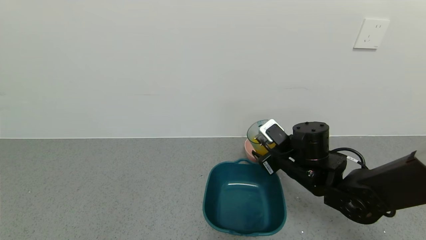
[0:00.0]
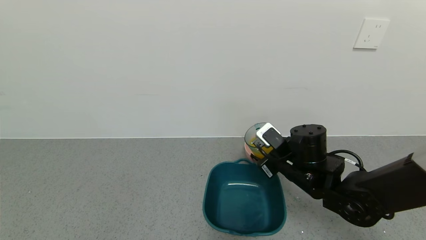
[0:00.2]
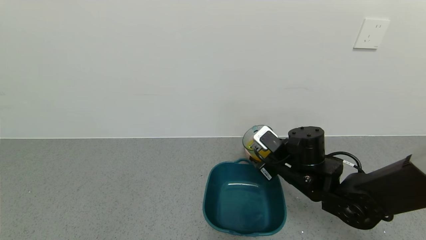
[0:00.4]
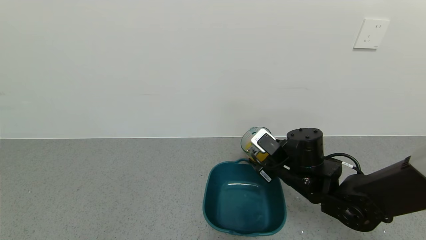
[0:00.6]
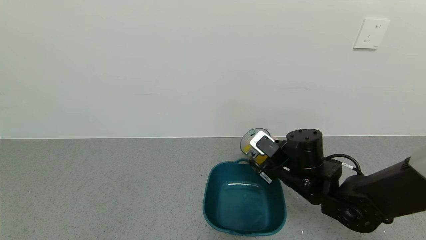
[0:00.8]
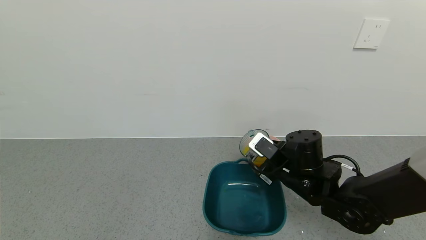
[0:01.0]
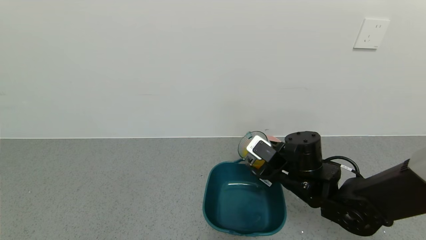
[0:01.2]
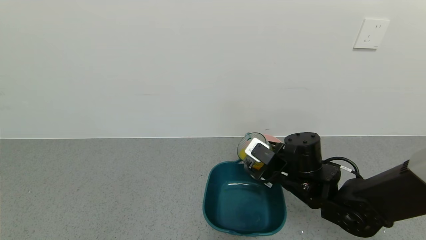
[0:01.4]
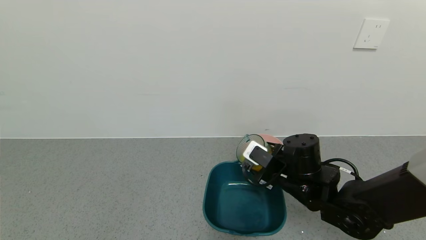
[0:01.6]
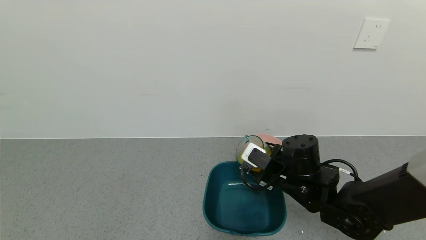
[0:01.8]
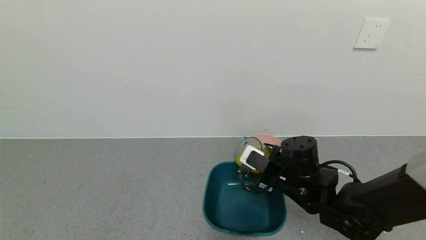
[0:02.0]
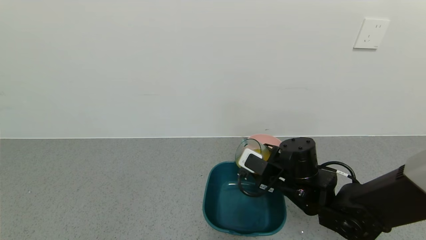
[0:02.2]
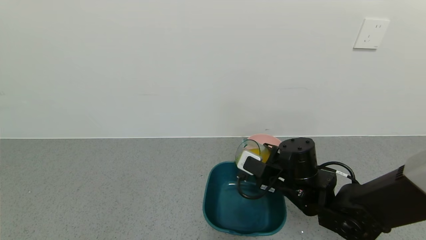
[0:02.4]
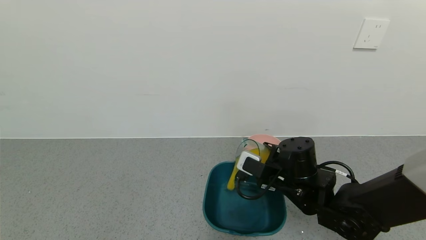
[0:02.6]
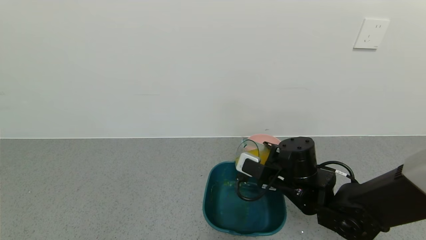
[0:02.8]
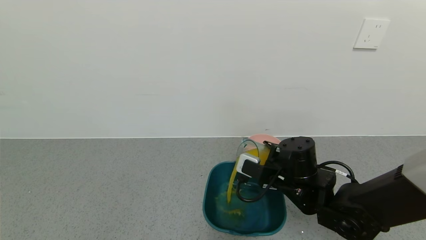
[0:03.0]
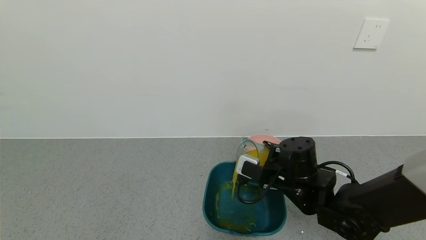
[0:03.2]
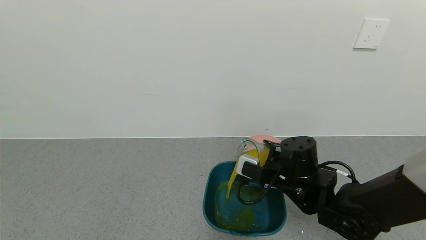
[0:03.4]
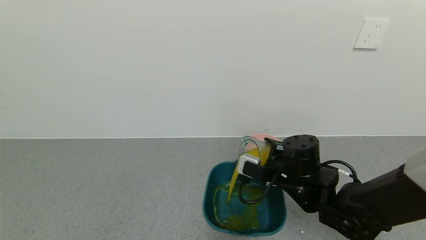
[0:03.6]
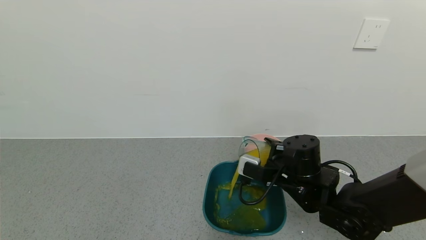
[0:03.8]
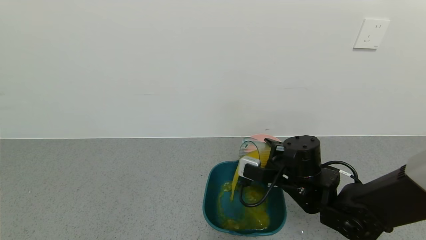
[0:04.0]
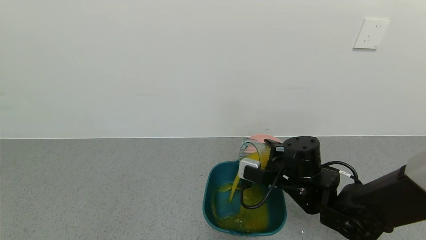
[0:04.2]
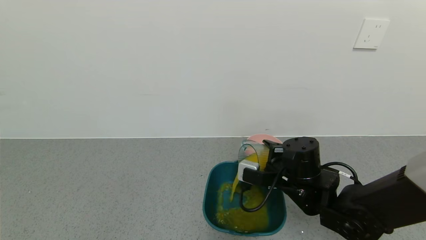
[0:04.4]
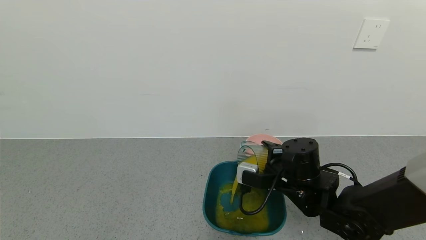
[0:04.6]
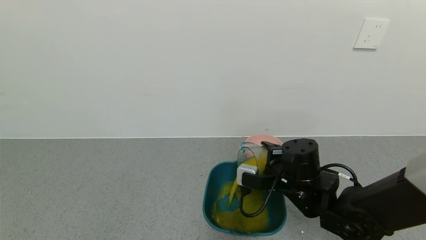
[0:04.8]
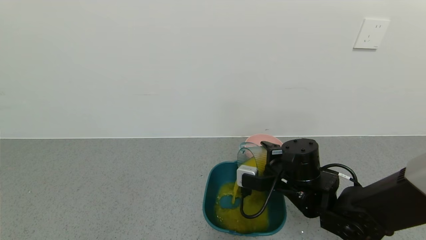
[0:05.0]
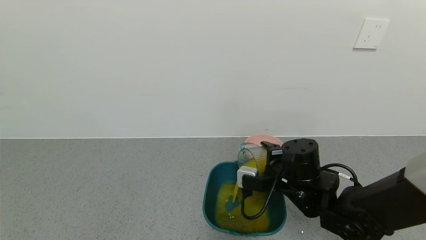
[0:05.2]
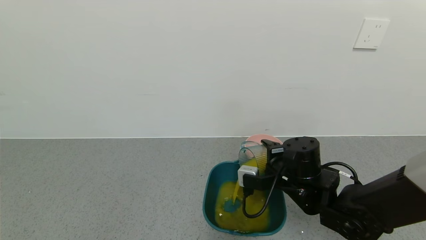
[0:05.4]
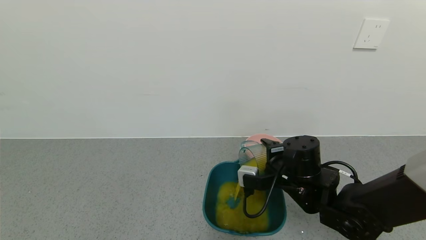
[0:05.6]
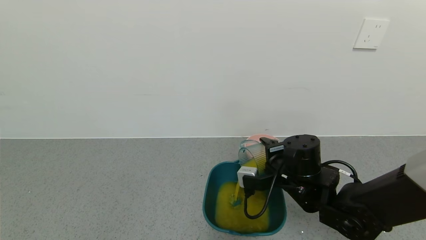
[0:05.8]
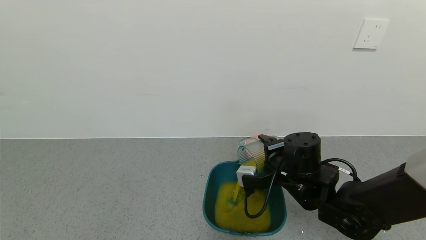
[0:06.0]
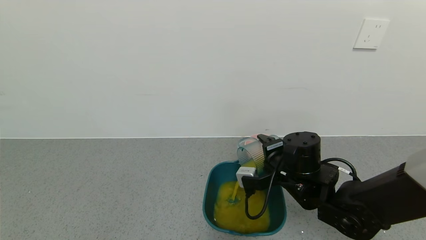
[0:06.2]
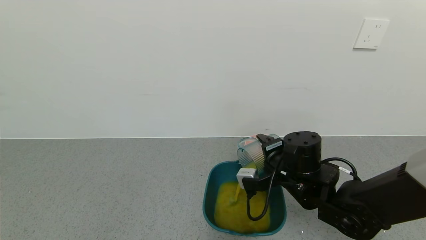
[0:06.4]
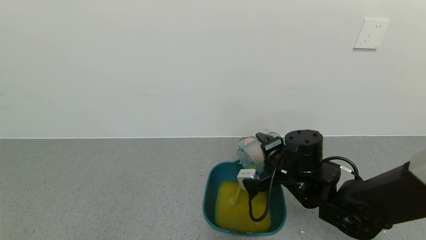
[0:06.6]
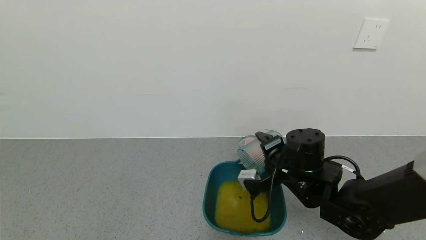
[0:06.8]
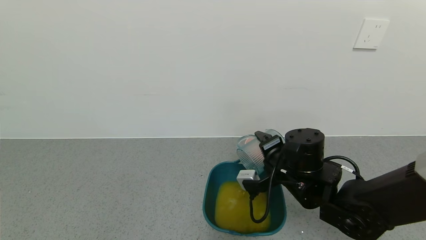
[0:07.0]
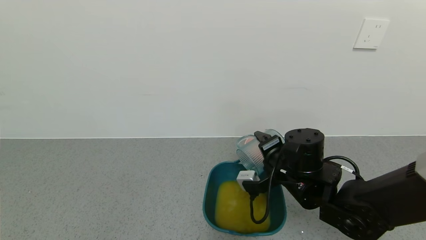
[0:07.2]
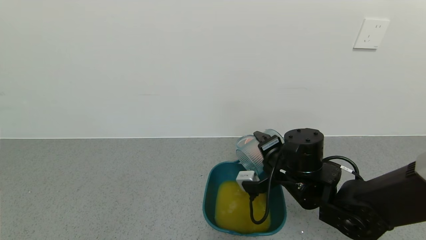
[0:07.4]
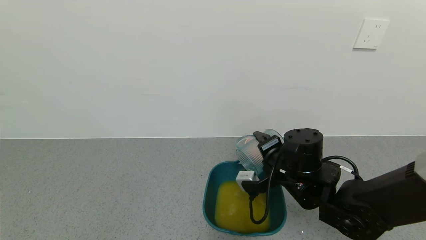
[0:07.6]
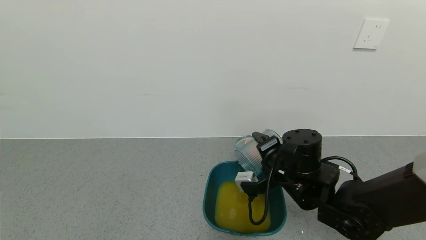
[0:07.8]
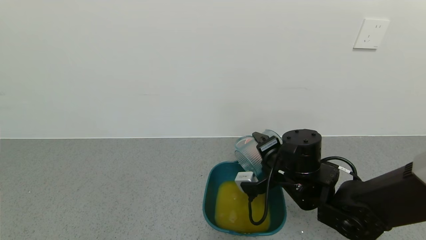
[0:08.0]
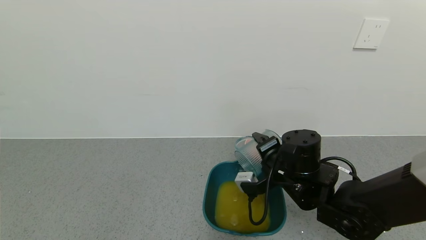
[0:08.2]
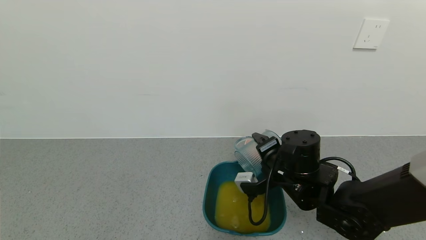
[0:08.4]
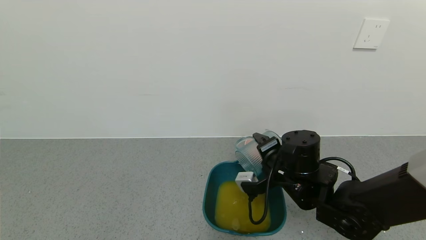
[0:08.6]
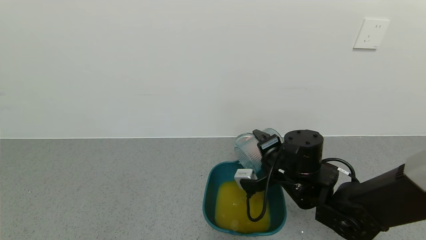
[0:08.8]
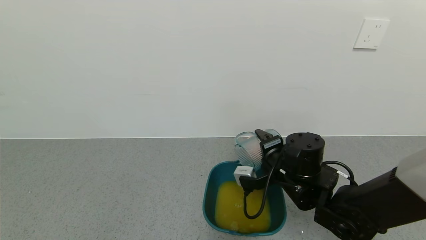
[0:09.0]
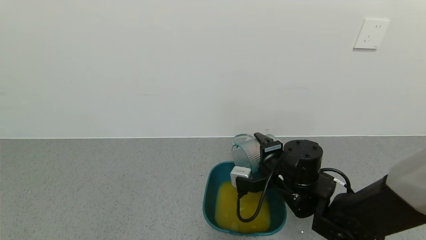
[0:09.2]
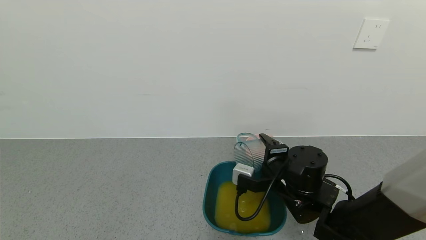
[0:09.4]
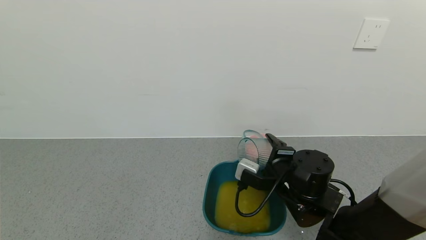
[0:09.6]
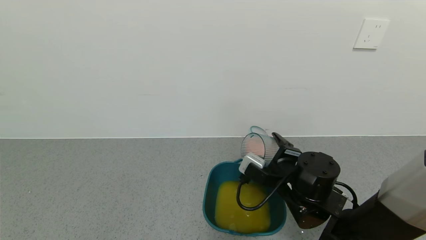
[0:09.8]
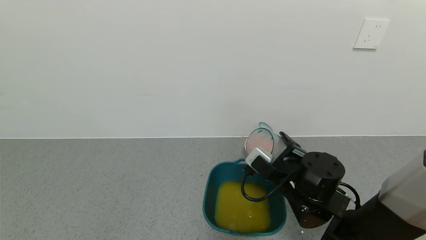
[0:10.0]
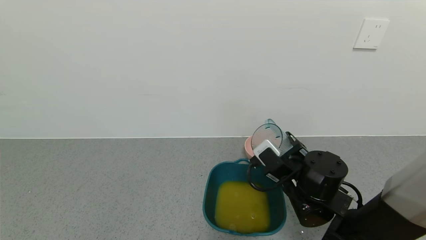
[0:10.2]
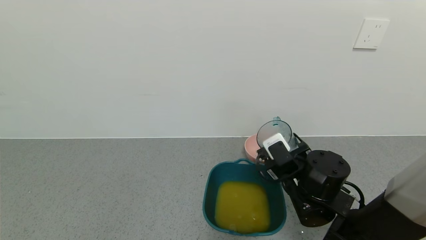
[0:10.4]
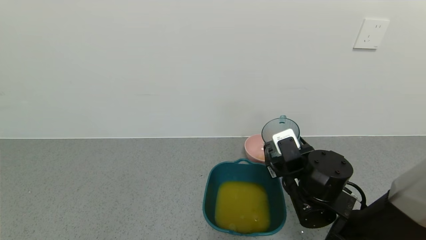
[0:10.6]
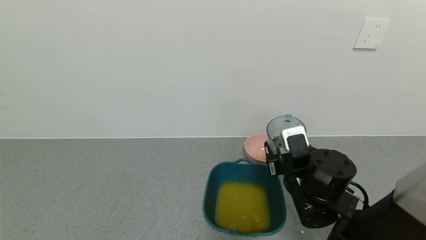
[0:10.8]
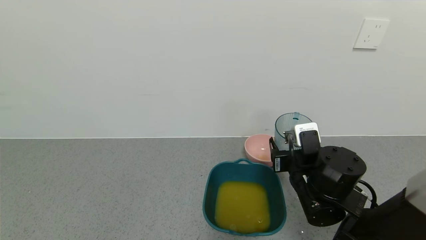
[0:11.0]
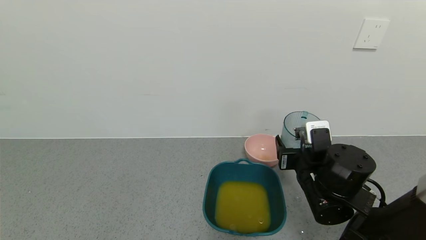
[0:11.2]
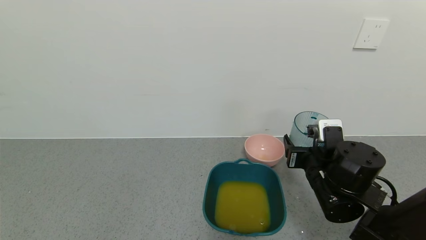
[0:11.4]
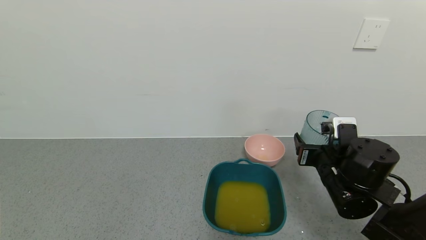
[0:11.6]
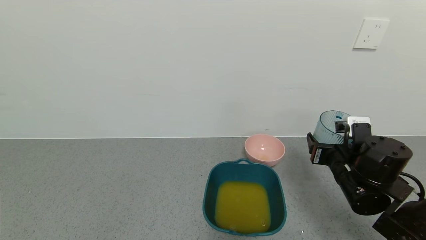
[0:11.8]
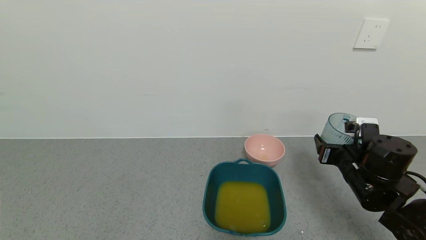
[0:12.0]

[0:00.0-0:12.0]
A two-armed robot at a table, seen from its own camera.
Task of the whole recording: use a gripper to pick up the cup and pour the liquid into a bowl or tray.
Step, 0:00.0 to 0:07.4: Pour the orange juice into the green bowl with the right gripper.
0:00.0 to 0:01.6: The grippers stay close to where they were, moving slightly.
0:01.6 to 0:03.0: The grippers make only small movements.
0:03.0 to 0:04.4: The grippers stay close to where they were, moving slightly.
0:04.4 to 0:06.0: The grippers stay close to where they were, moving slightly.
0:06.0 to 0:09.0: The grippers move only a little.
0:10.4 to 0:12.0: The right gripper heads to the right, covering approximately 15 cm.

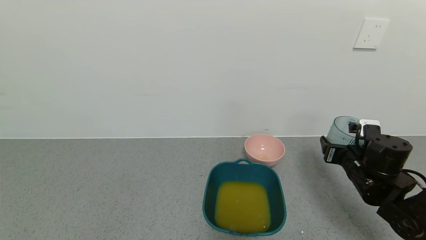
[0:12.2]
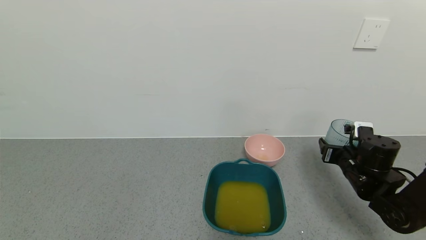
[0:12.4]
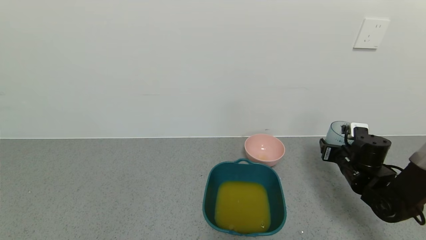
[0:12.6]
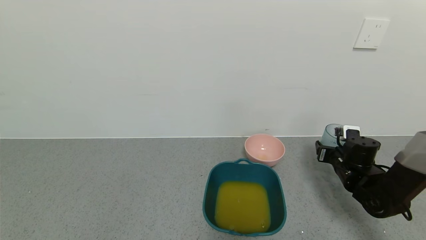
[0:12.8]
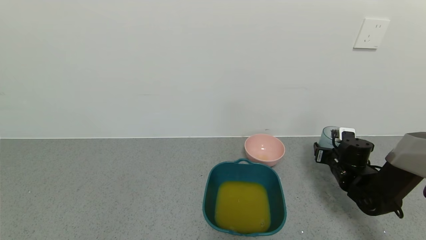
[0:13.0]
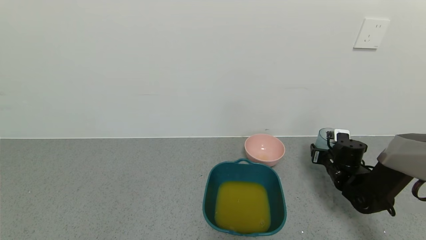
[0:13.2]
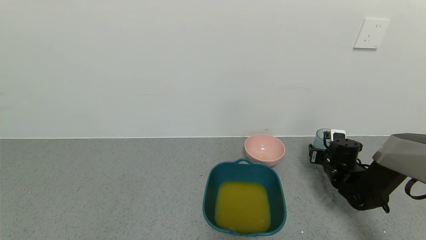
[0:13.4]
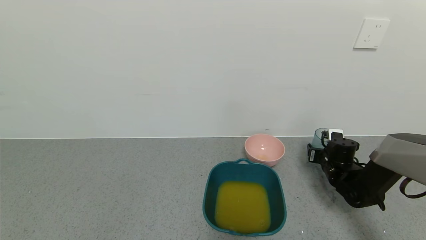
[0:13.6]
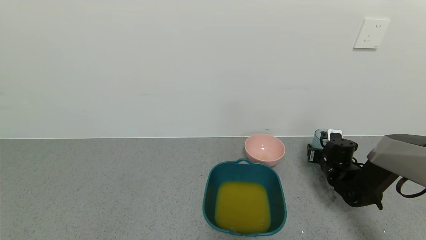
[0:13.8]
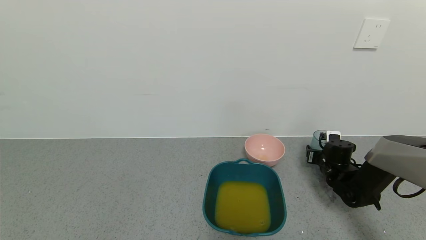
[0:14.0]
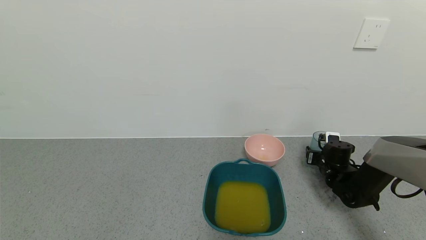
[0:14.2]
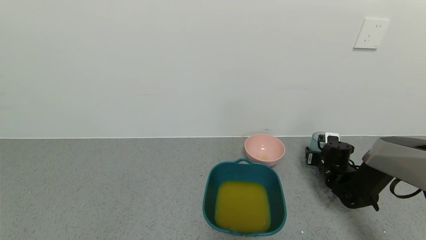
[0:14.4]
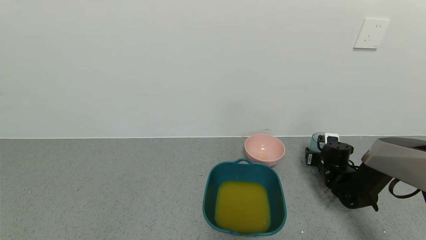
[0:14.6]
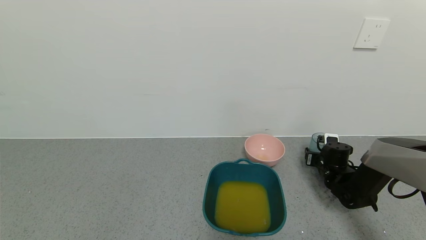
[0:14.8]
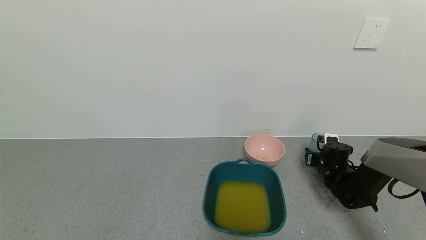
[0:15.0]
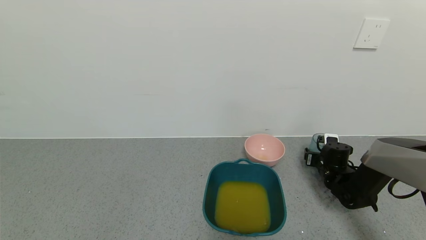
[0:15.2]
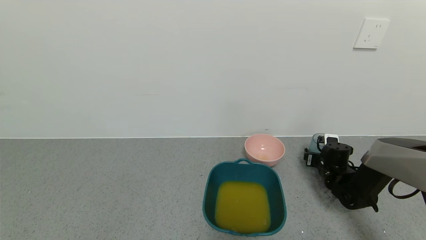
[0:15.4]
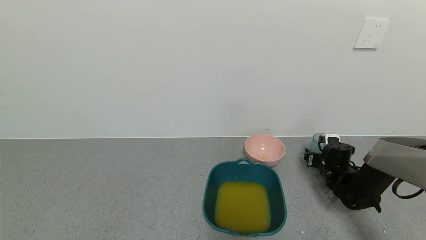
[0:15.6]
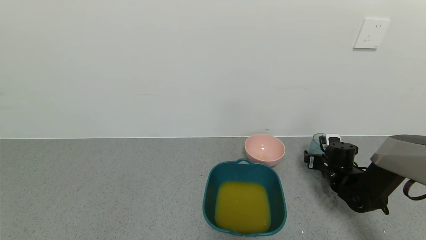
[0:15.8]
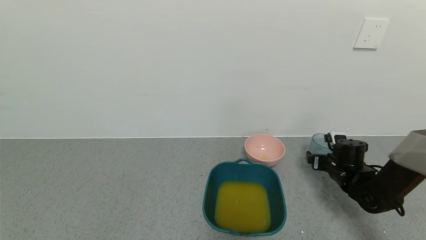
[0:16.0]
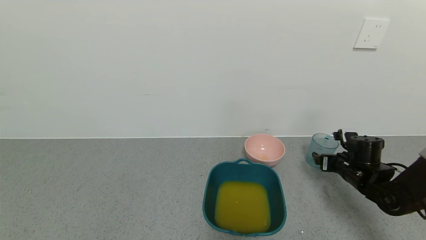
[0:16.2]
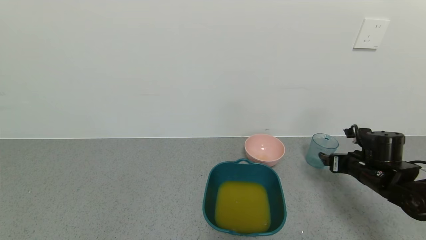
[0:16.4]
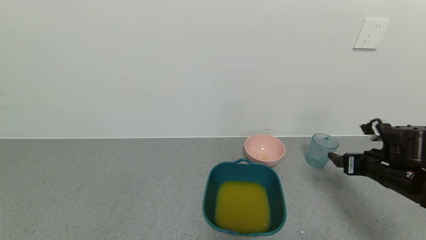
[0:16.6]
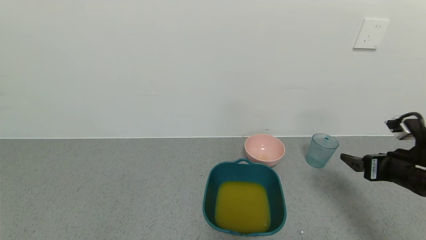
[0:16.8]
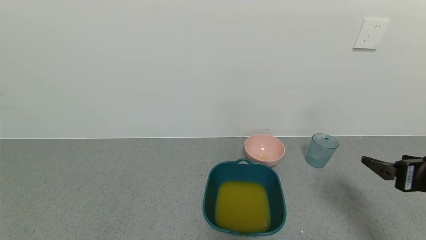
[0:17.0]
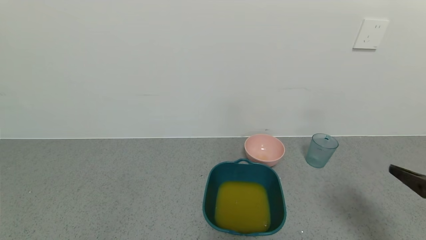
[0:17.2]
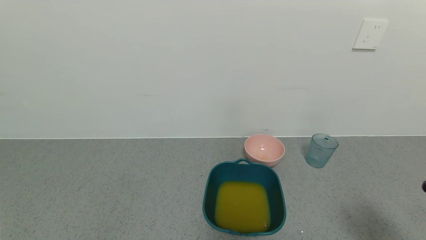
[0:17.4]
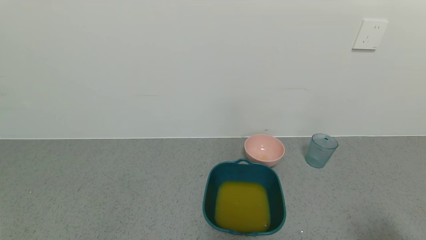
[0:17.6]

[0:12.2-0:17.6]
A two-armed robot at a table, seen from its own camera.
Task of the whole recording: use a gripper to pick up the cup and pour the liquid into a bowl or tray.
Step, 0:12.2 to 0:16.2: Place the glass cup with the right gripper.
0:12.2 to 0:13.6: The right gripper shifts about 15 cm forward and downward.
0:13.6 to 0:15.0: There are only small adjustments of the grippers.
0:15.0 to 0:16.2: The right gripper is displaced backward and upward by roughly 10 cm, and opens.
0:16.2 to 0:17.6: The right gripper goes about 35 cm backward and upward.
